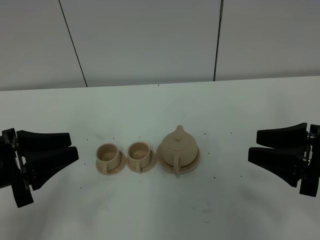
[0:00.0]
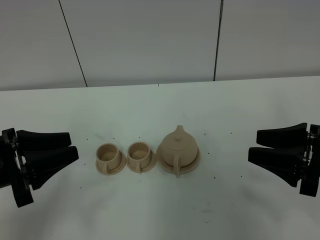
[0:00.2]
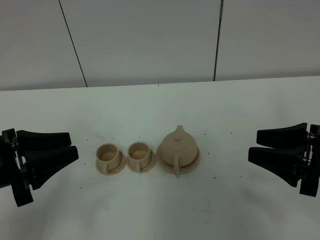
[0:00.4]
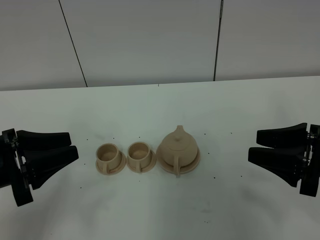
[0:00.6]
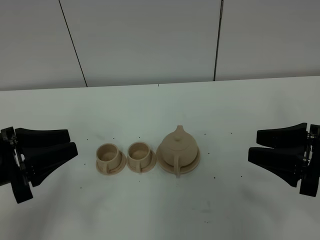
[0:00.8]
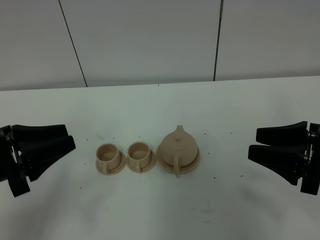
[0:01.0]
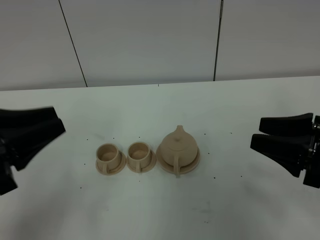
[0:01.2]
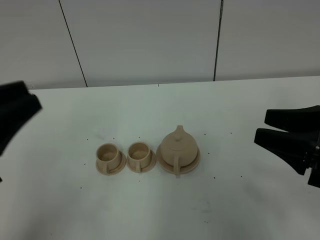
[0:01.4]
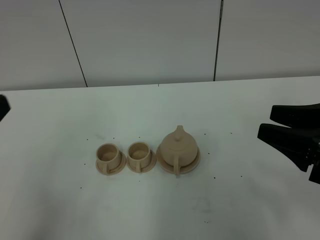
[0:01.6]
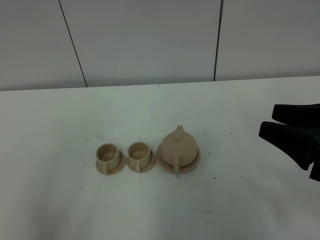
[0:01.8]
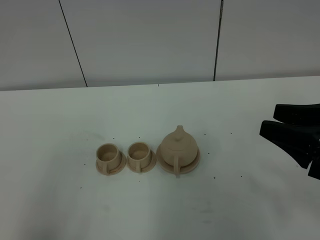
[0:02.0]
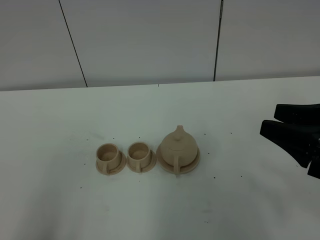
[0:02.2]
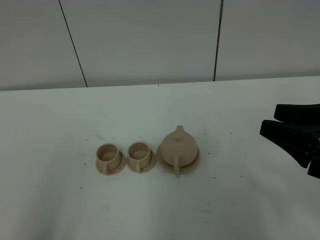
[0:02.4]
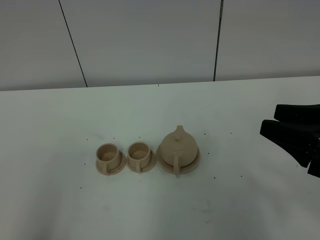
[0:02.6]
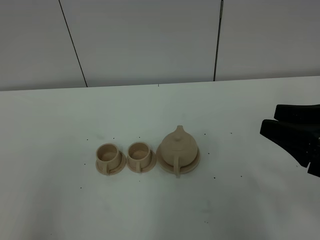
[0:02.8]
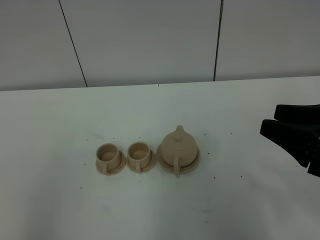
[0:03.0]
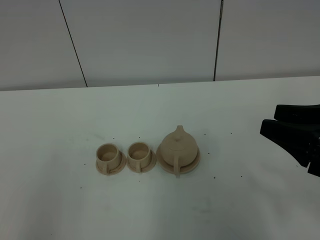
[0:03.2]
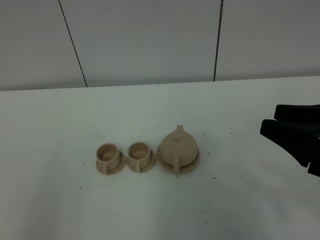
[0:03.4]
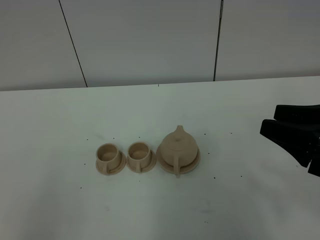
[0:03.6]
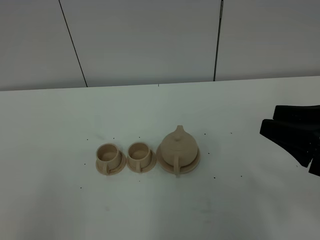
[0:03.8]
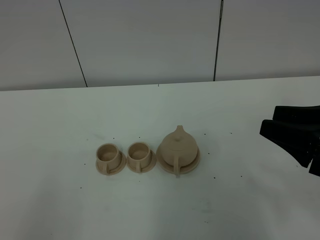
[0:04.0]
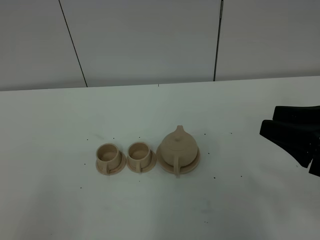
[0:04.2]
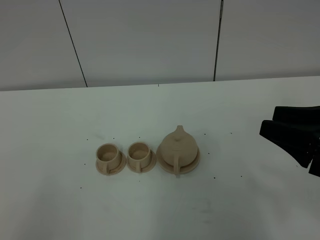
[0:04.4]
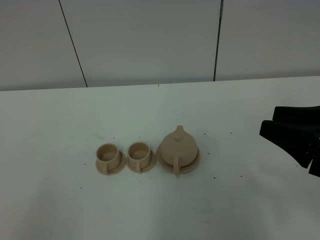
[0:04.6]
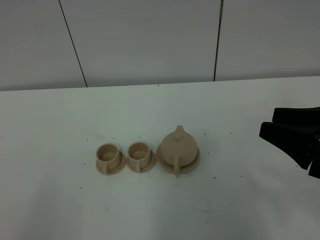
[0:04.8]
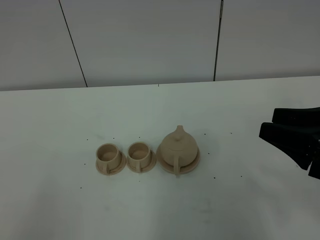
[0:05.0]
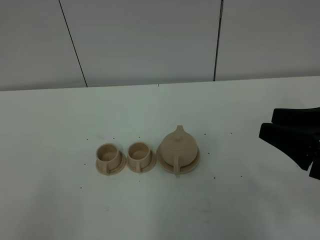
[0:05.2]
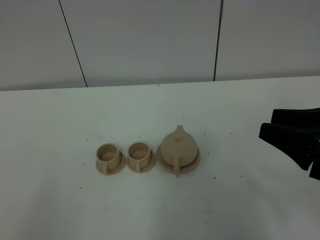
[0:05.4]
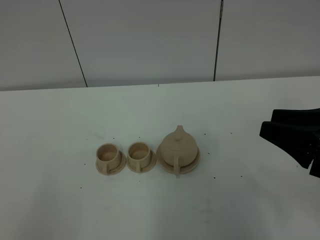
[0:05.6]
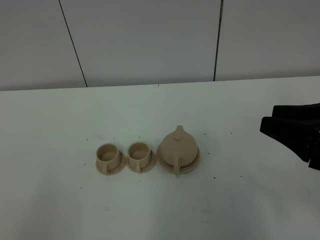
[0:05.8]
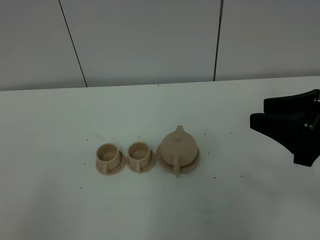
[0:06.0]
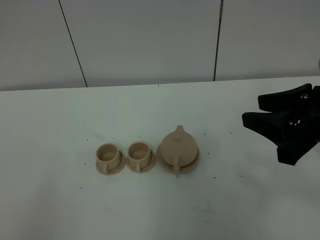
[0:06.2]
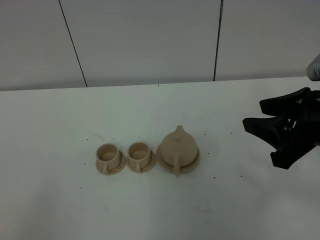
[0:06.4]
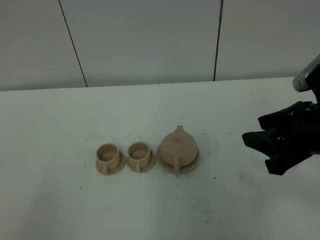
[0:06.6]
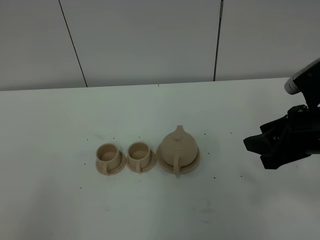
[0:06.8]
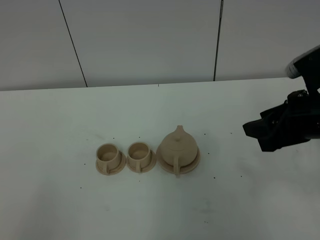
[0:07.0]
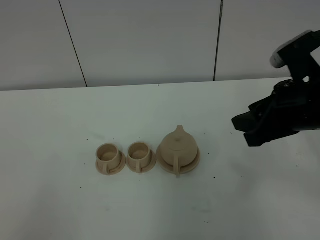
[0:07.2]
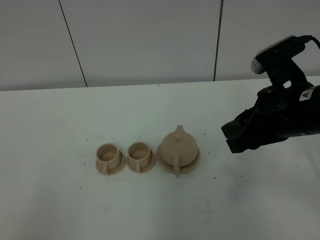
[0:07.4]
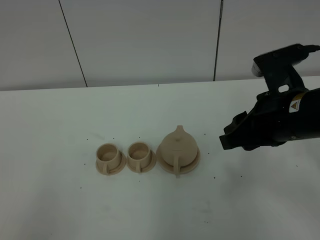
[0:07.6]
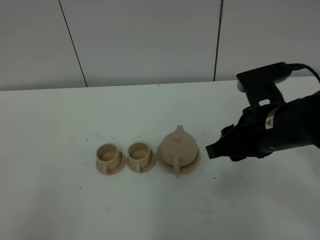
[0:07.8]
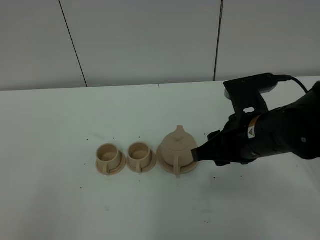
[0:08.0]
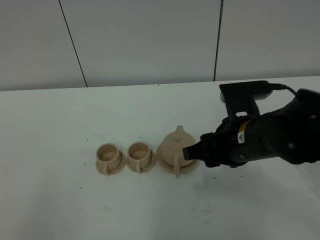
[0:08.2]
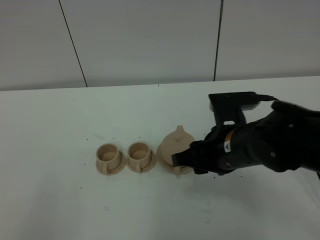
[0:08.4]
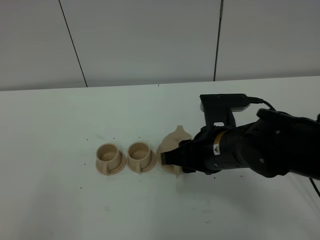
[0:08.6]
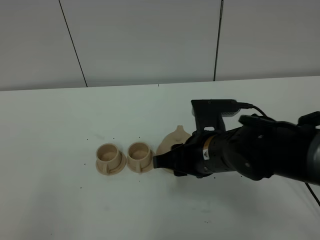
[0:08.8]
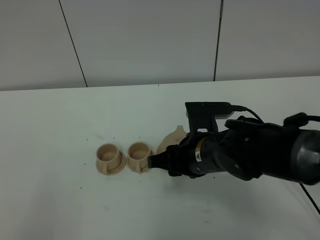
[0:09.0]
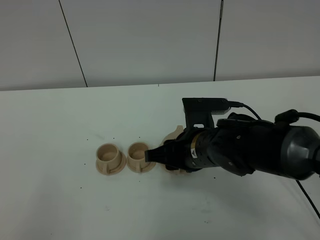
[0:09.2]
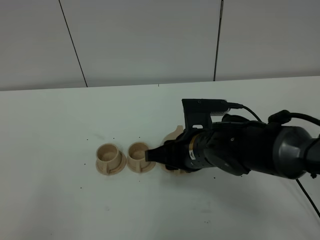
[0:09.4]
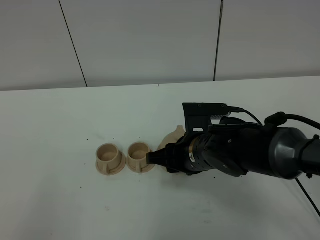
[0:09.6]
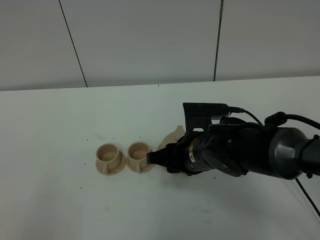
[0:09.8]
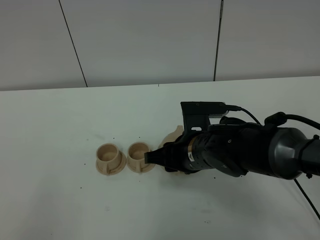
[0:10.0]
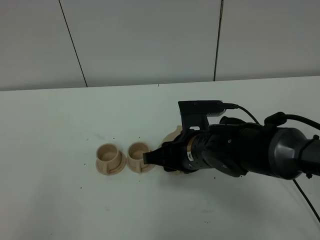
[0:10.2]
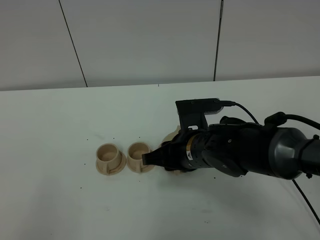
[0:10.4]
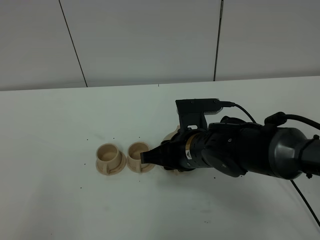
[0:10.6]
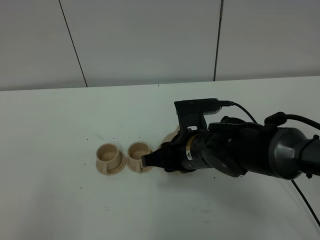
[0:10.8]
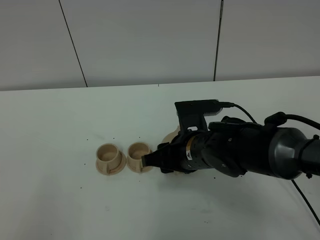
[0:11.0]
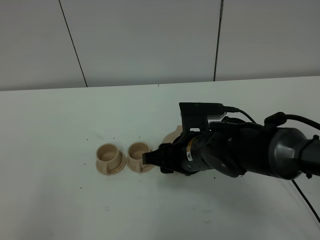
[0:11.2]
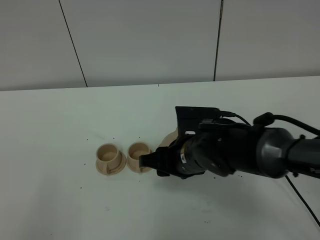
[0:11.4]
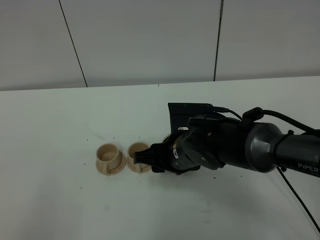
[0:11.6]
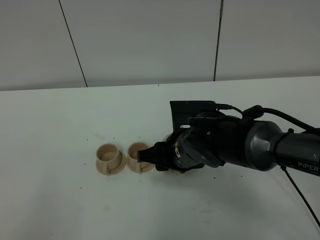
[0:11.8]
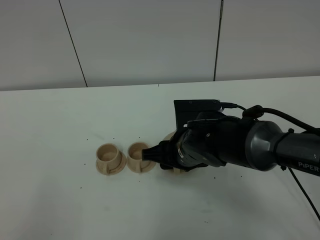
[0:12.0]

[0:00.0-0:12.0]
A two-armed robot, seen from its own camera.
Task of the whole recording: grasp the brown teapot and pour the tea into the two brown teacups one by one, put the brown teapot back in its original place.
0:00.0 to 0:01.6: The left gripper shifts some 15 cm upward and backward.
0:04.4 to 0:06.0: The grippers move only a little.
0:06.0 to 0:07.6: The right gripper travels to the left by some 10 cm.
0:07.6 to 0:09.0: The right gripper shifts roughly 15 cm to the left and downward.
0:09.0 to 0:12.0: The grippers move only a little.

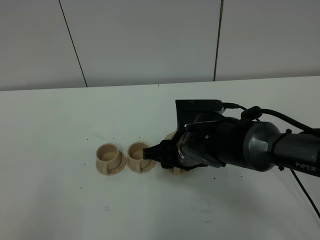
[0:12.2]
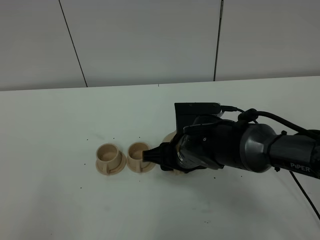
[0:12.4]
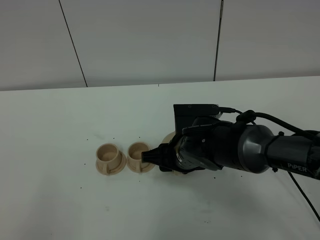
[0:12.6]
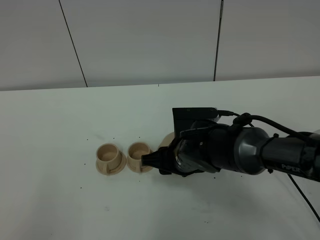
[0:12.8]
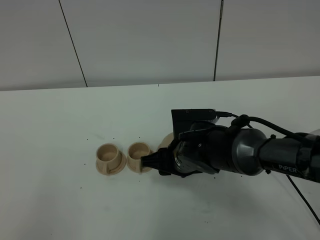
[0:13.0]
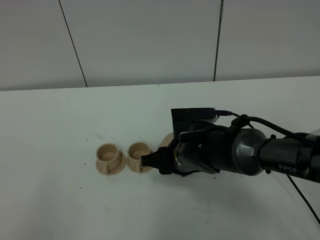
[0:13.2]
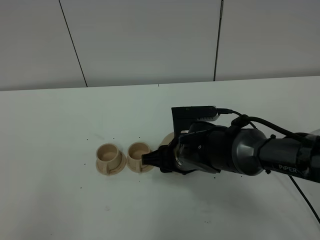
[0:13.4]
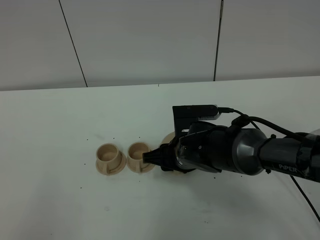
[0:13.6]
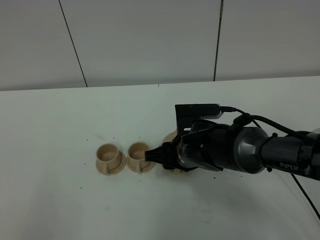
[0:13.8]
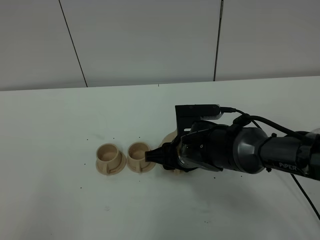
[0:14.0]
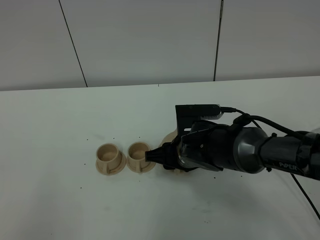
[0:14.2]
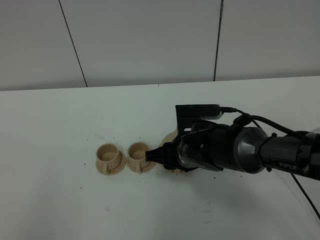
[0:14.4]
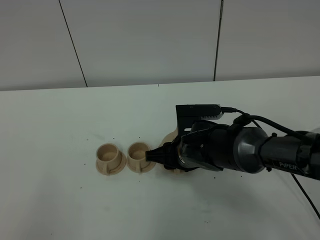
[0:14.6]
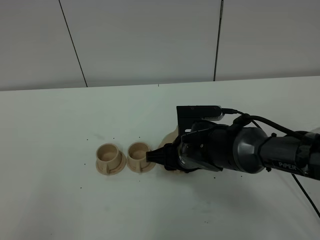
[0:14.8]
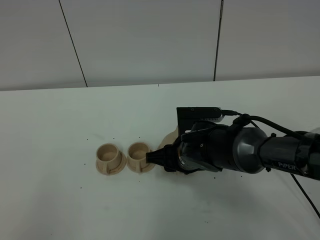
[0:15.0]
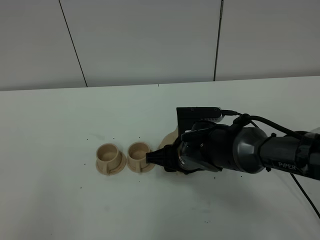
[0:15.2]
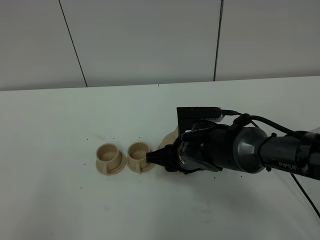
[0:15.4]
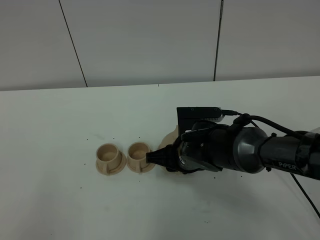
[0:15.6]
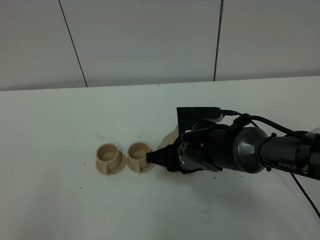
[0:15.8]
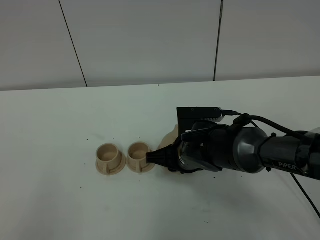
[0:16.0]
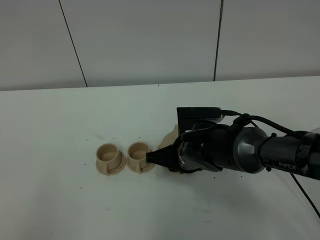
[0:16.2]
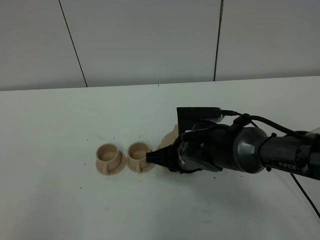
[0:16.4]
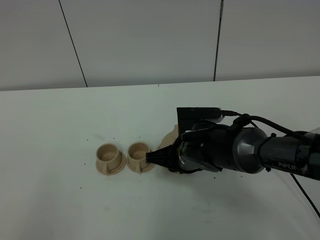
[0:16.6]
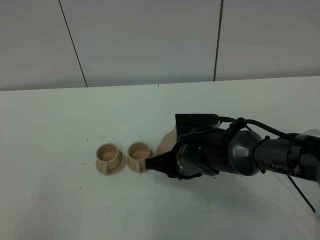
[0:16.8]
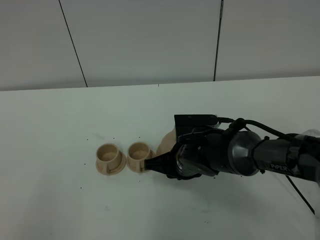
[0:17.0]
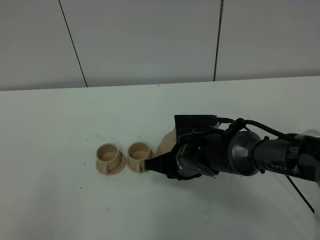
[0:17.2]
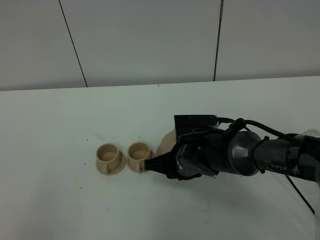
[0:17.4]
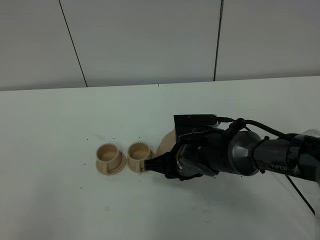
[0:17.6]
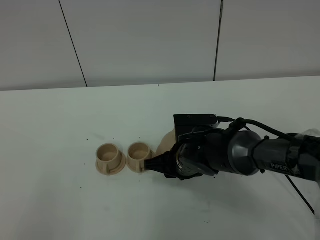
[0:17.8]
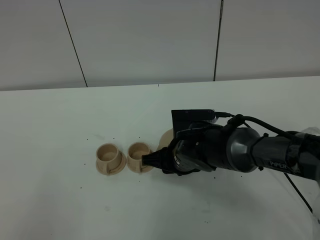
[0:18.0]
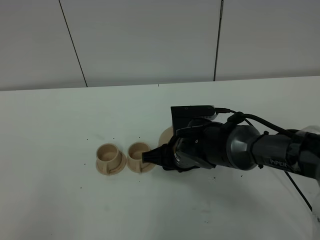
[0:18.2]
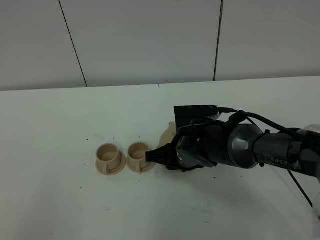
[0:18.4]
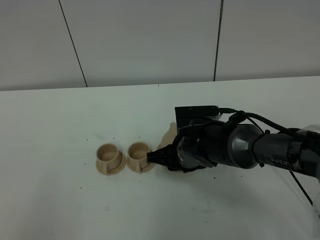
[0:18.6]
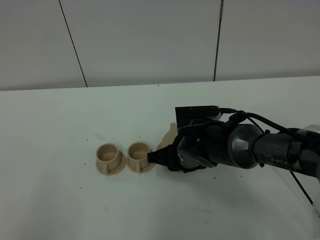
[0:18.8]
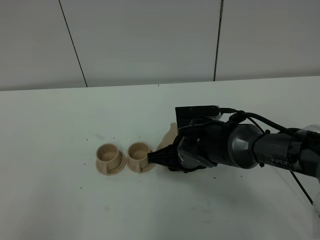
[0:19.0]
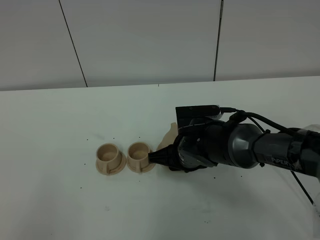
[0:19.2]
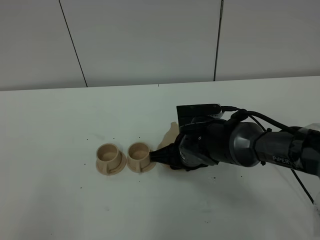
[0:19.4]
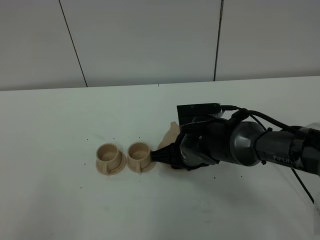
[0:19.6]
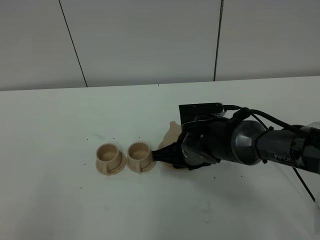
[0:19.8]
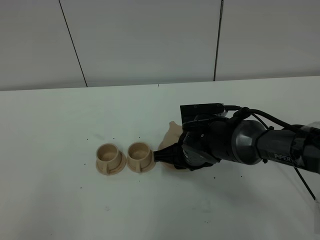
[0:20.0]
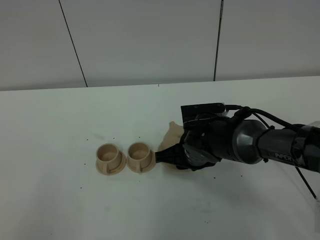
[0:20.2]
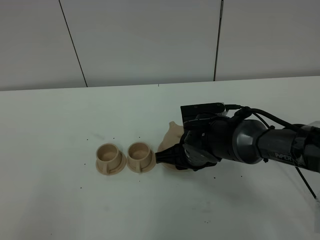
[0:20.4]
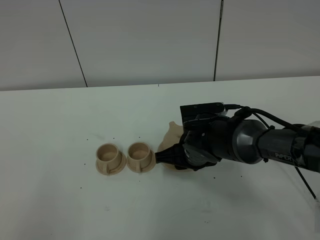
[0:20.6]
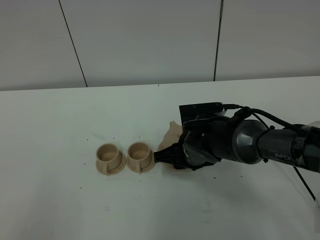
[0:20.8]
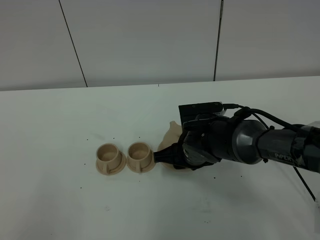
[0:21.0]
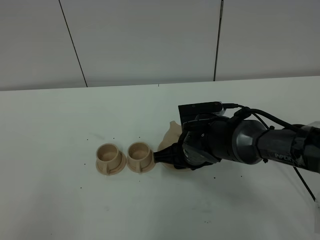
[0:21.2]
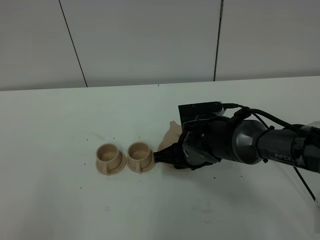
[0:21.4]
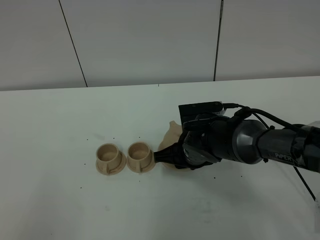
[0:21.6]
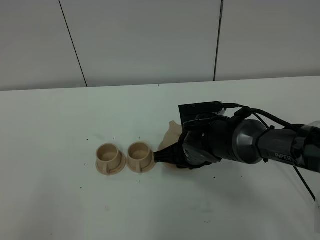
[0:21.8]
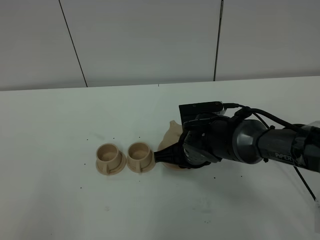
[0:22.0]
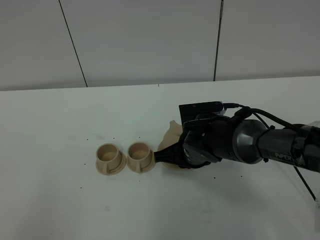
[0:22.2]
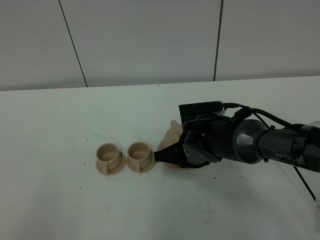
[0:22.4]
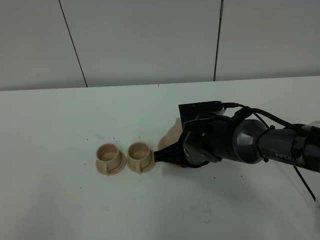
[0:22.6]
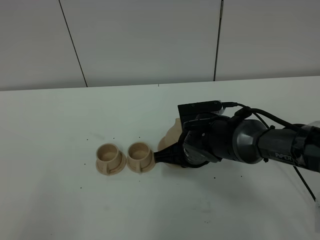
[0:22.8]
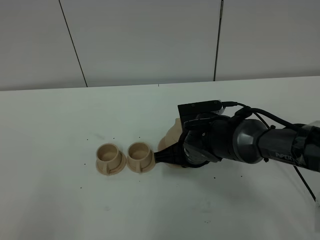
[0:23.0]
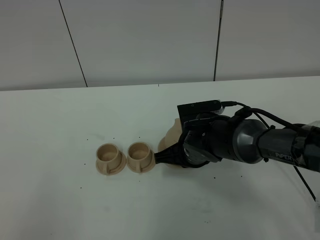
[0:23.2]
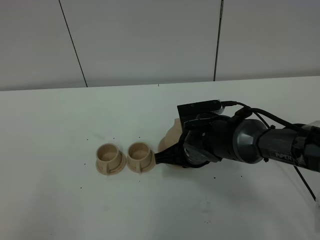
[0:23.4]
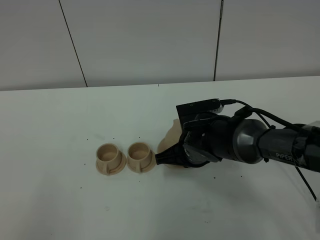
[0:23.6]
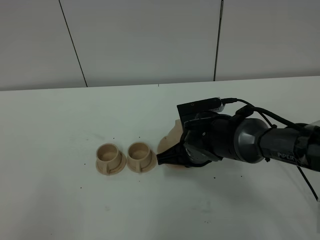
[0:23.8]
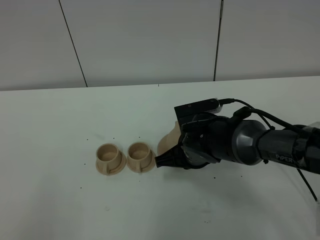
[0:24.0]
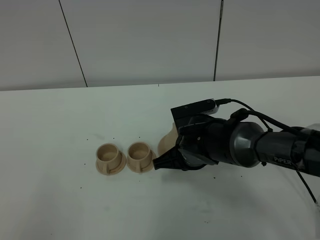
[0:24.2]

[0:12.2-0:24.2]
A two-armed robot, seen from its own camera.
Task of the whole recording: grasp the brown teapot and pour the tea into the two brown teacups one by one, put the brown teapot back in its original place.
Step, 0:12.2 to 0:22.6: Grasp the teapot with right gripper.
0:12.2 to 0:13.8: The grippers move only a little.
0:13.8 to 0:15.2: Both grippers stay put.
0:16.6 to 0:18.2: The two grippers keep their place.
0:18.2 to 0:19.8: The grippers stay close to where they were, moving slightly.
0:19.8 to 0:21.2: Neither gripper changes place.
0:21.2 to 0:22.6: The right gripper closes its fingers.
0:22.6 to 0:24.2: The grippers move only a little.
